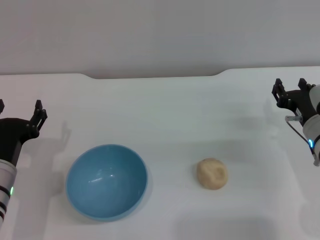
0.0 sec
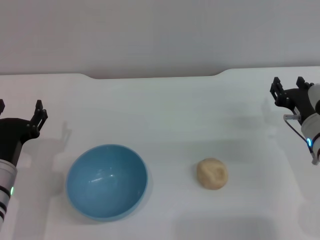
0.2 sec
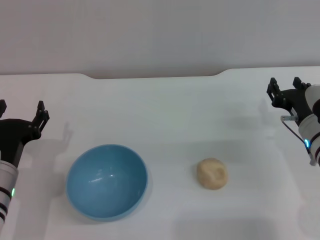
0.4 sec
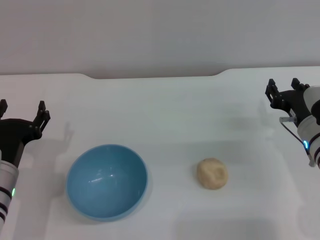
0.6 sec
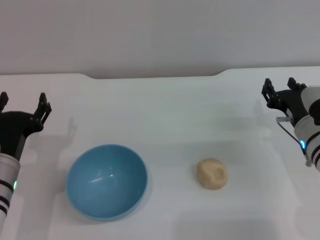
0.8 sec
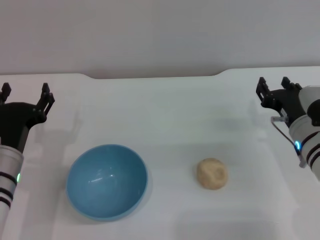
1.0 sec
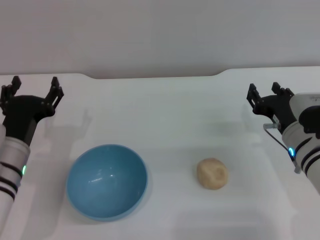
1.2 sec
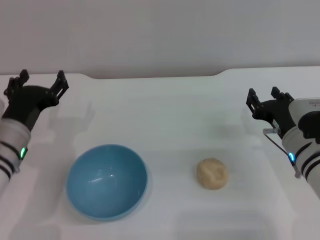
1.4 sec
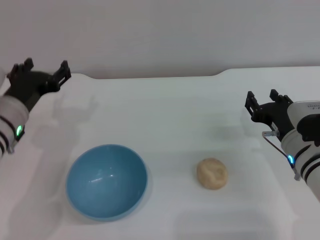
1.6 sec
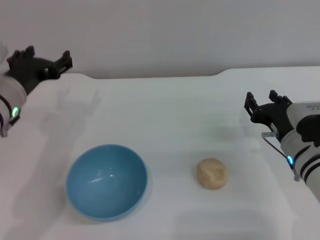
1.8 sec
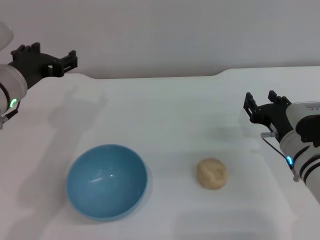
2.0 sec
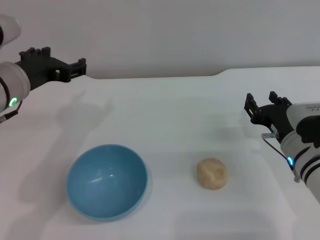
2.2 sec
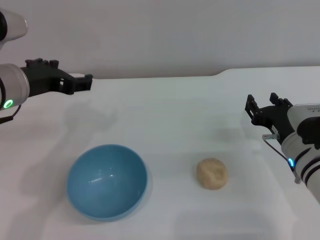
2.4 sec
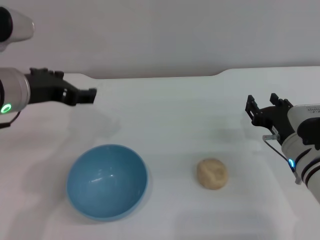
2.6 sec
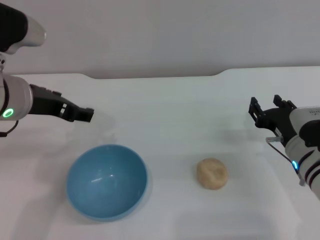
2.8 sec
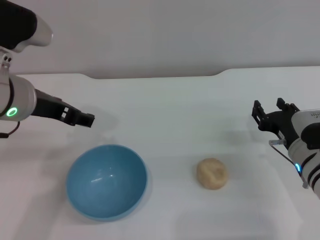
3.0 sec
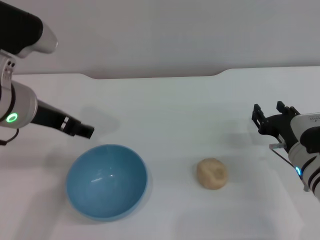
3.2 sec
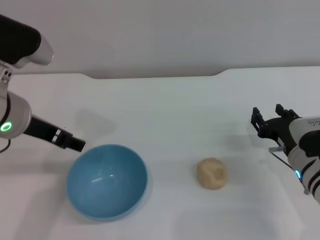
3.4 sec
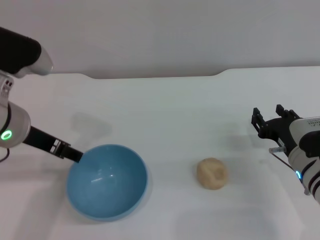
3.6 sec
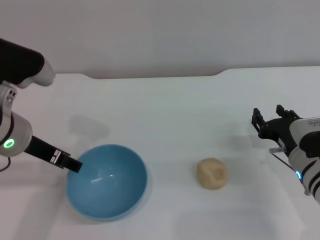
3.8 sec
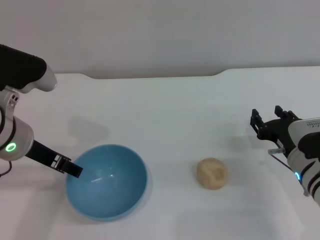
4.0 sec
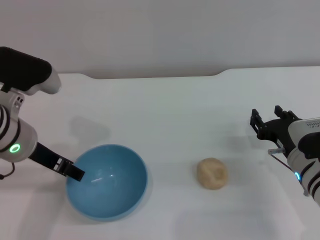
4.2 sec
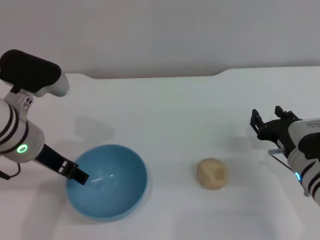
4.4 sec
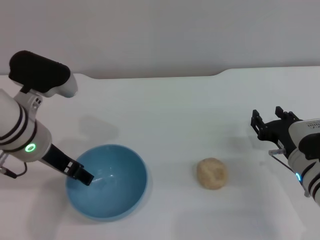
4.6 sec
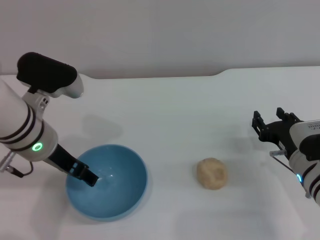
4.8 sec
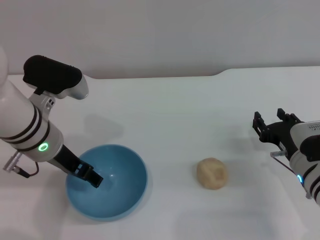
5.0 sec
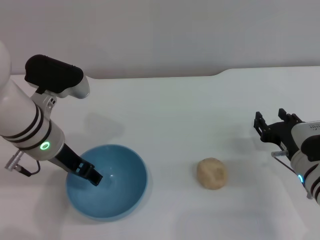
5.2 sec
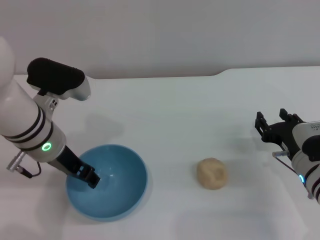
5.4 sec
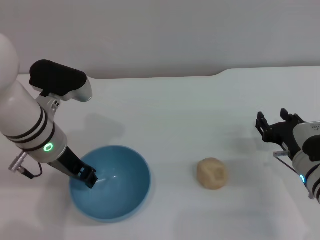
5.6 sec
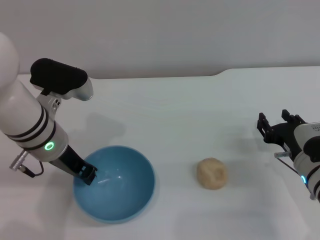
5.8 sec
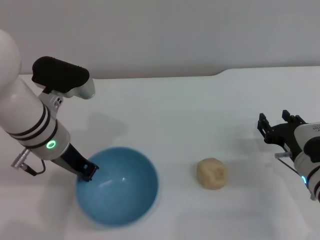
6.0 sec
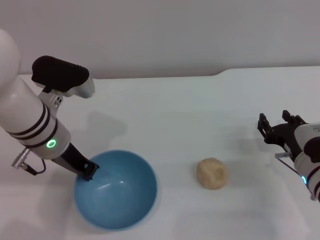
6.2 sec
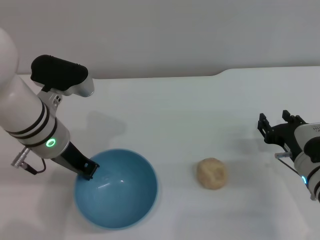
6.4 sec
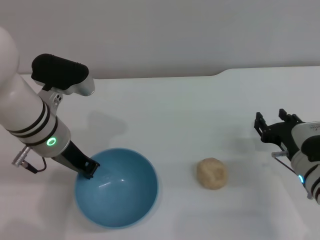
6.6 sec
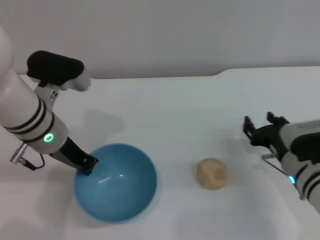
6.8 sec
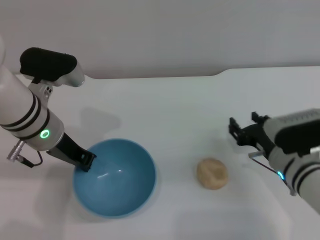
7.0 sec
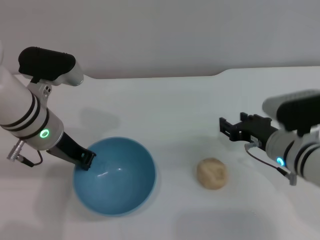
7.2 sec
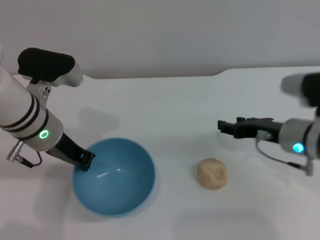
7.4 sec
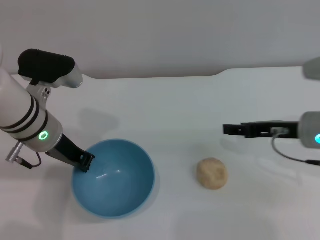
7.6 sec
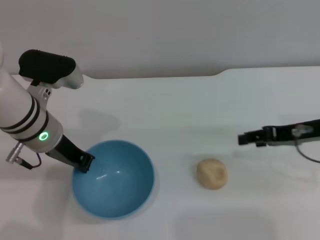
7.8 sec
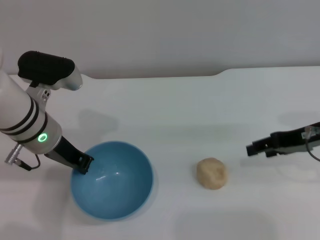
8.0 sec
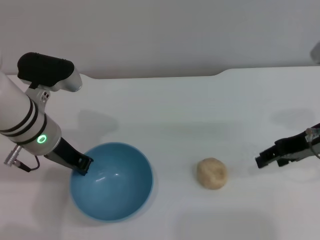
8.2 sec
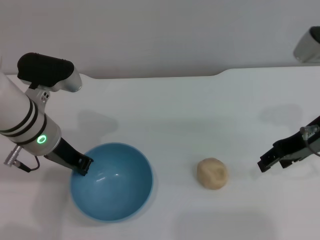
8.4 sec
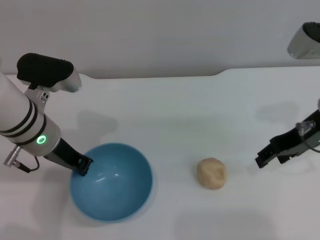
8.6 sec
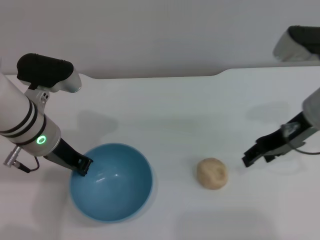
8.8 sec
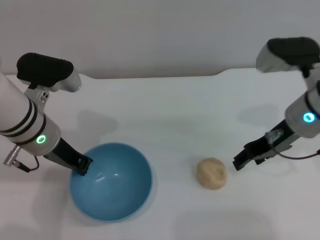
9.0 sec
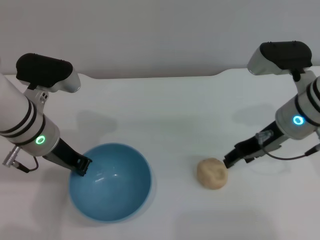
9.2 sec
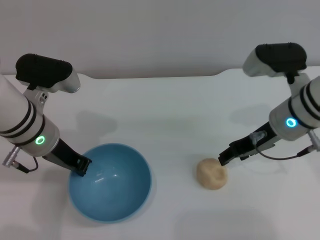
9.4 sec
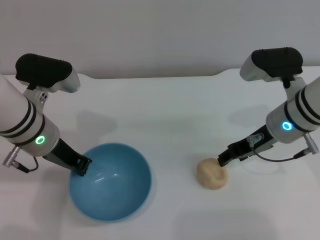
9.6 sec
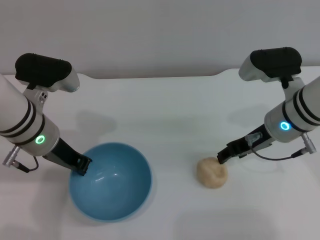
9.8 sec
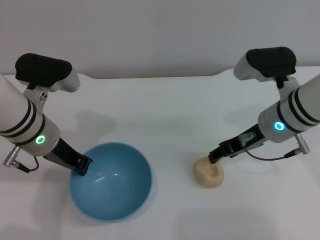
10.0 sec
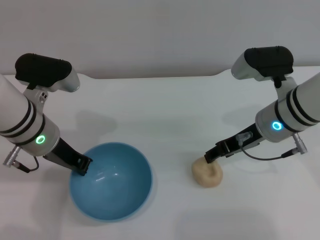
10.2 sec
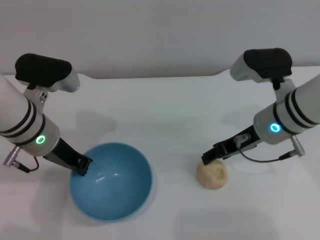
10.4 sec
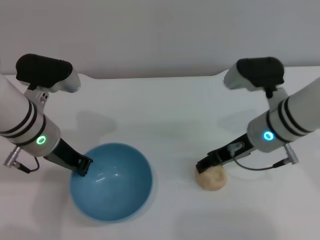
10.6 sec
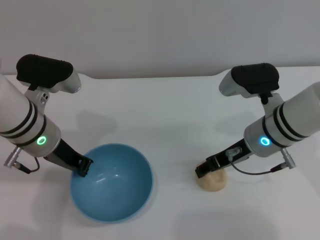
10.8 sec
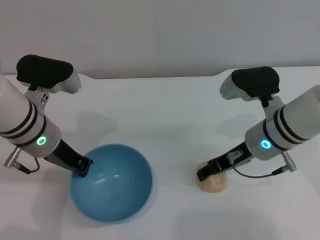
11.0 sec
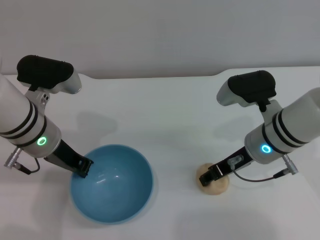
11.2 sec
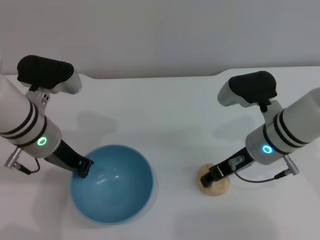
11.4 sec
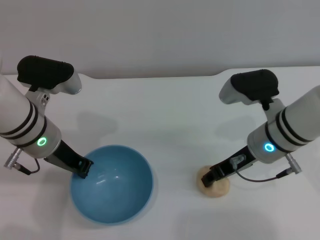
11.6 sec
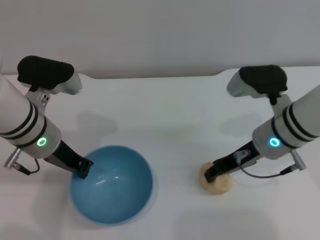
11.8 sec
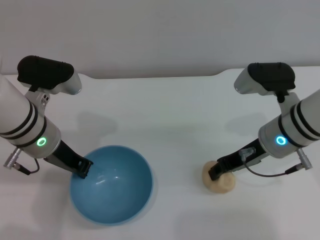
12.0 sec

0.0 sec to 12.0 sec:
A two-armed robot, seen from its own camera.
Task of the whole recording: put the egg yolk pastry into the blue bowl and pour it out repeatedly.
Step, 0.0 sec to 7.6 sec: Pick up the bowl with the left gripper.
0.0 sec to 1.6 sec: The left gripper travels upward and forward by about 10 cm.
1.6 sec to 3.0 sec: The left gripper goes approximately 10 cm upward.
3.0 sec to 4.4 sec: The left gripper shifts some 5 cm downward.
4.4 sec to 6.0 sec: The left gripper closes its fingers.
6.0 sec to 7.6 sec: The right gripper shifts roughly 10 cm upward.
7.6 sec to 9.0 sec: The right gripper shifts by roughly 5 cm.
9.0 sec to 10.4 sec: The grippers stay close to where they were, moving slightly.
10.4 sec to 12.0 sec: The right gripper closes its fingers.

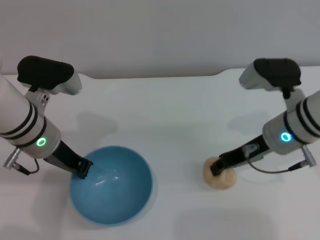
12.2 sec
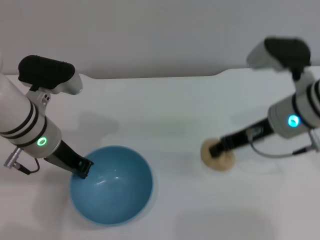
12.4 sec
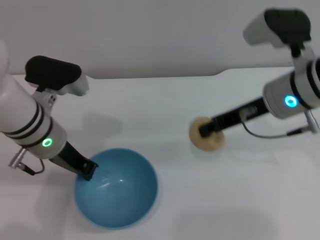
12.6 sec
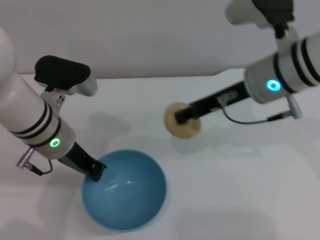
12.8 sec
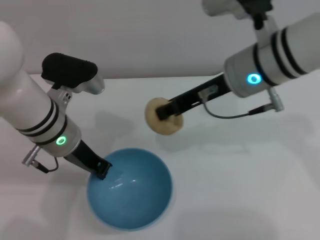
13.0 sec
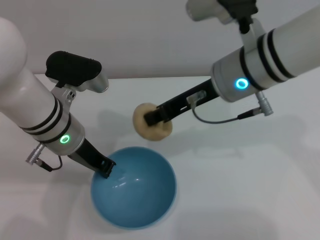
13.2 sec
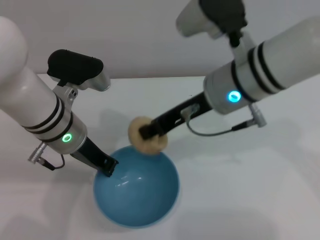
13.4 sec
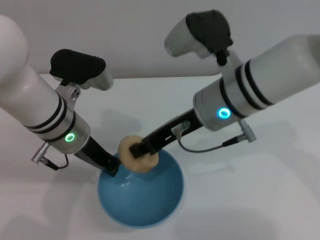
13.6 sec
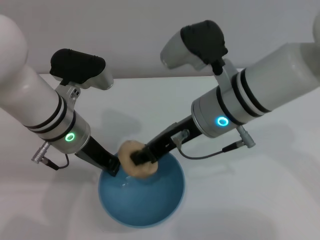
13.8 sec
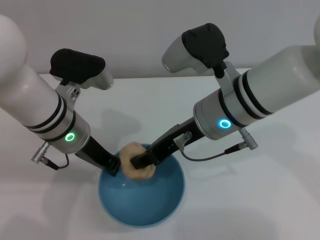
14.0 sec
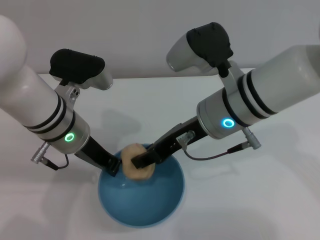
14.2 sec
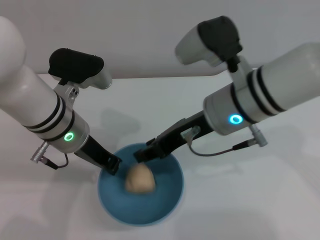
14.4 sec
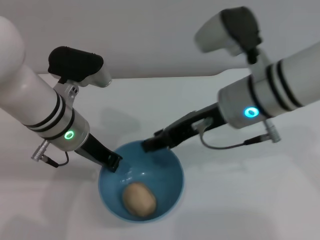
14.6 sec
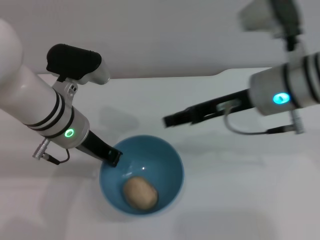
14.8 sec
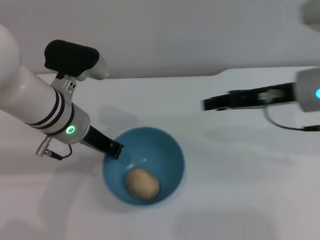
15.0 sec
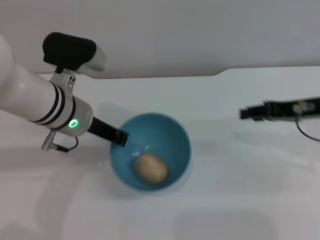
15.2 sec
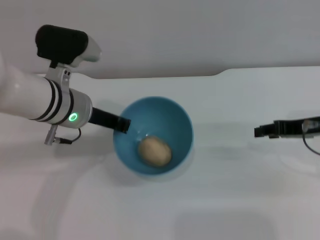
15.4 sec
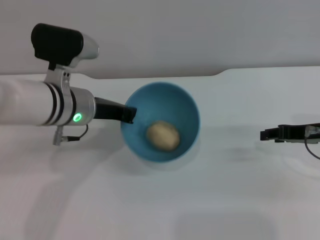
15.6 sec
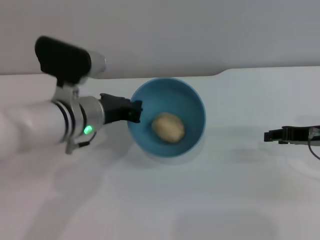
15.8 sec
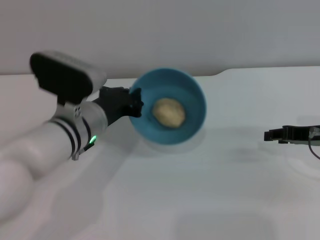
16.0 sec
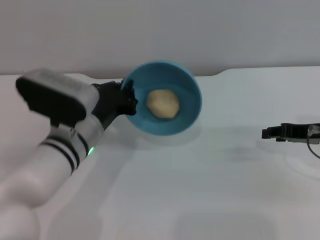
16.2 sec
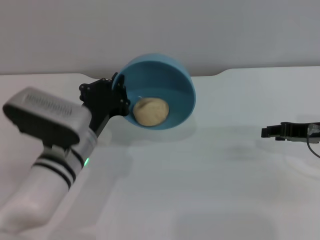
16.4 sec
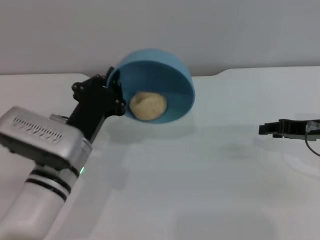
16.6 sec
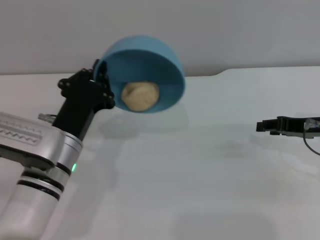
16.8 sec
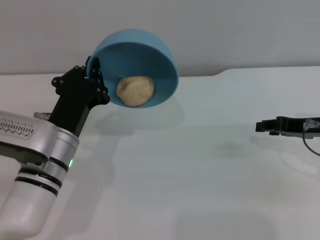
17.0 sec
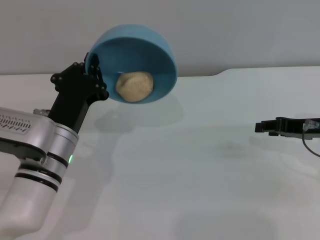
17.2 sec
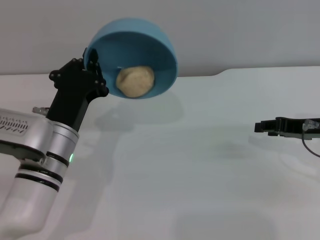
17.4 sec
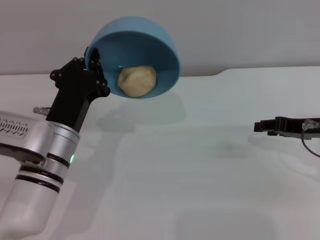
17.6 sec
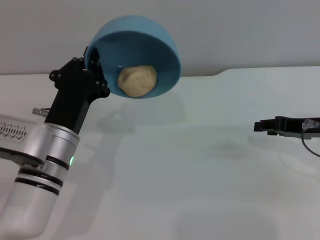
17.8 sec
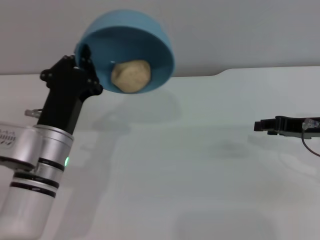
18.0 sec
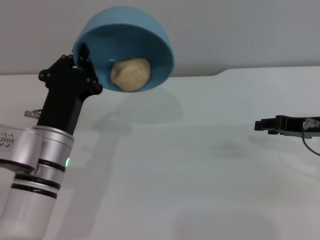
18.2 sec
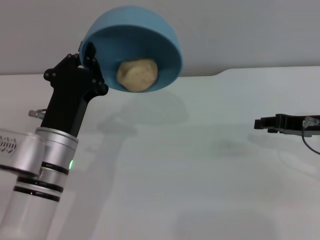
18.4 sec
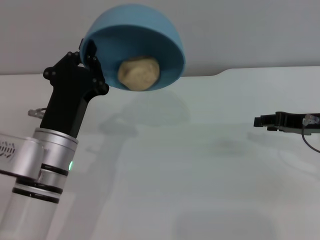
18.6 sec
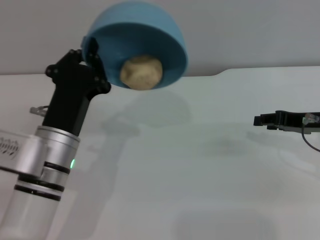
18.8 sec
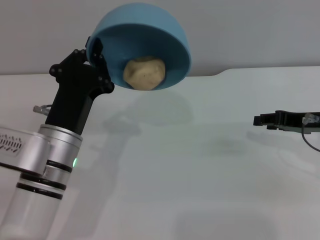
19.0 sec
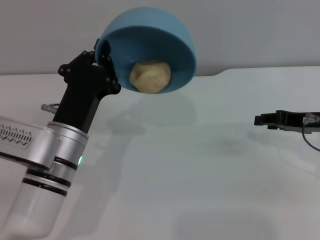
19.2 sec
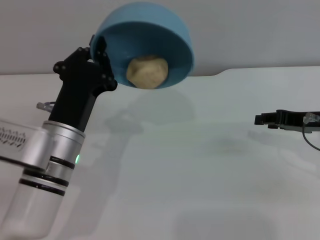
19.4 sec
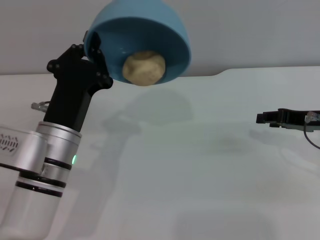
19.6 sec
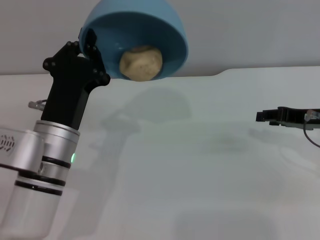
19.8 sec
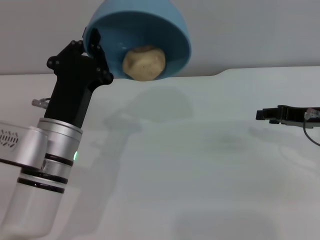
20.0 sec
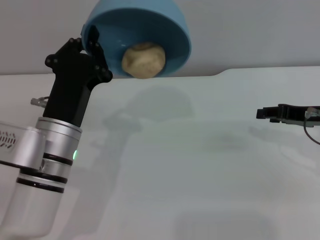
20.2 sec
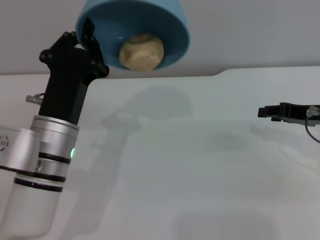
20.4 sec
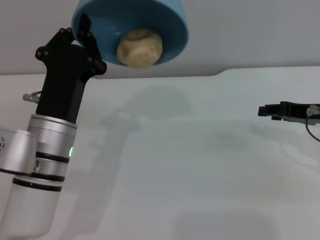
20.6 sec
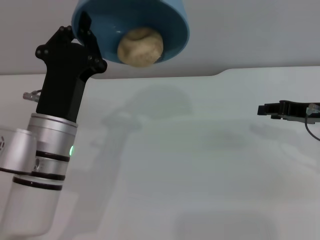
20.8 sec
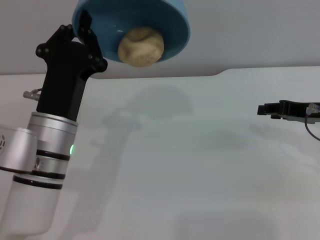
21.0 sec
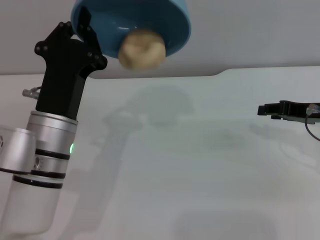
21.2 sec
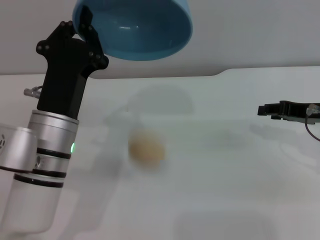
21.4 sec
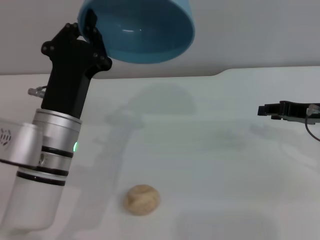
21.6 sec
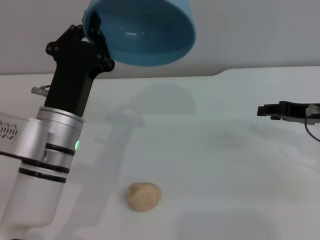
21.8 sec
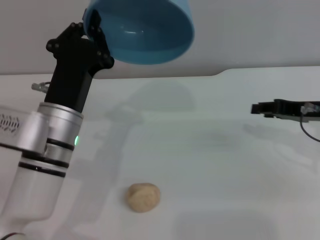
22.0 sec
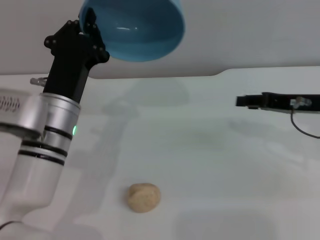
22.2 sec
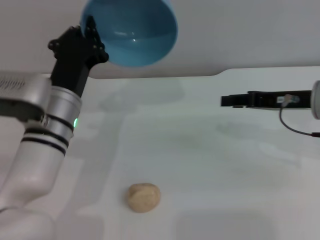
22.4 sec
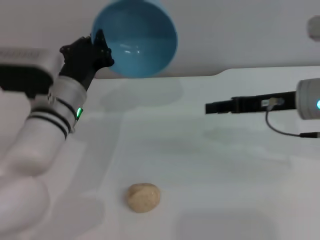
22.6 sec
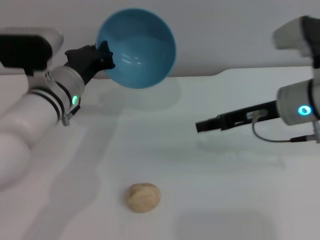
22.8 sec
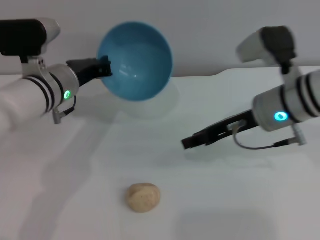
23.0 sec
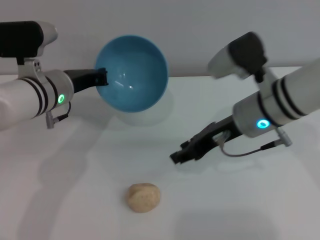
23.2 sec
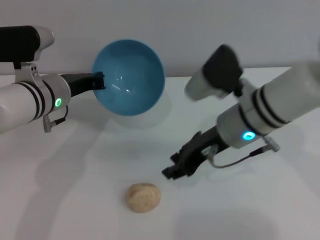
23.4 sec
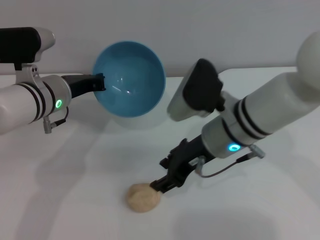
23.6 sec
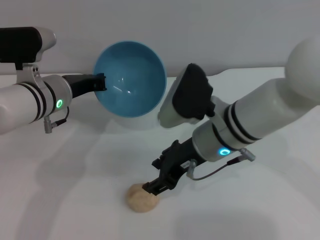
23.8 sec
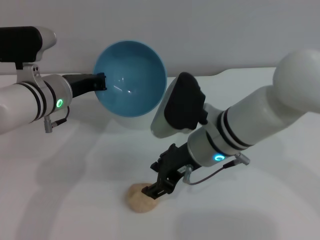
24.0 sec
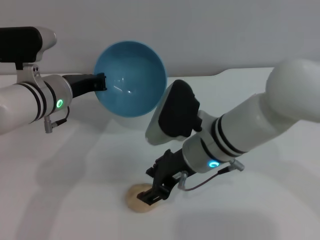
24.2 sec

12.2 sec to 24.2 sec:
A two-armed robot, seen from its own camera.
Task of the whole recording: put the egg yolk pastry into the blue bowl and pour it out repeatedly.
Step, 12.6 sec to 15.4 sec: Place the egg yolk pastry into the bowl.
Step, 15.6 sec to 21.4 sec: Pour the egg yolk pastry out of bowl.
12.2 sec to 13.8 sec: The right gripper is displaced to the left and upward by some 10 cm.
13.8 sec to 15.2 sec: The right gripper goes approximately 20 cm to the right, and opens up.
15.2 sec to 16.6 sec: The right gripper moves roughly 5 cm; the left gripper travels backward and downward by roughly 10 cm.
18.2 sec to 21.2 sec: The grippers move only a little.
21.2 sec to 22.6 sec: The right gripper moves to the left, roughly 5 cm; the left gripper shifts roughly 10 cm forward.
22.6 sec to 24.2 sec: The left gripper changes place by about 5 cm. The right gripper moves to the left, about 15 cm, and opens.
